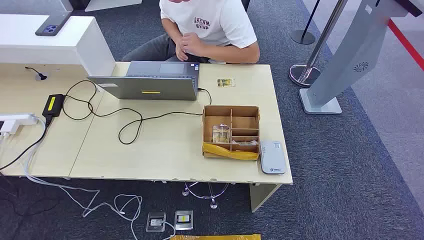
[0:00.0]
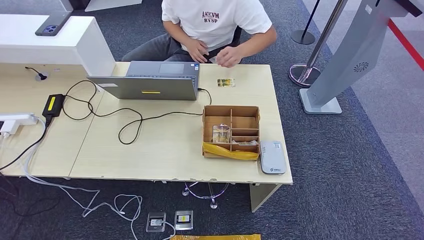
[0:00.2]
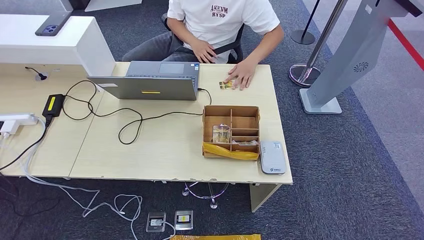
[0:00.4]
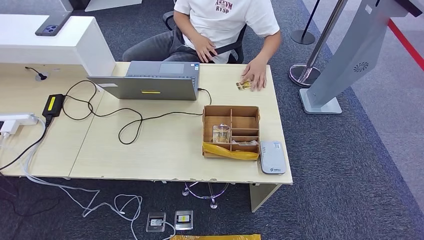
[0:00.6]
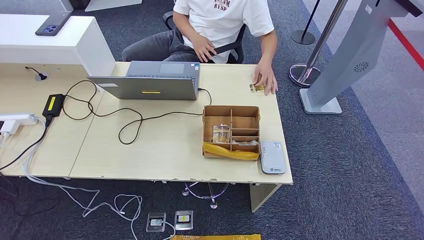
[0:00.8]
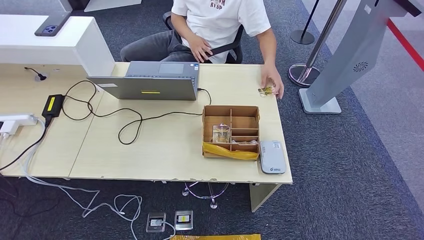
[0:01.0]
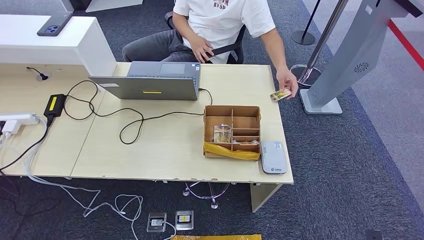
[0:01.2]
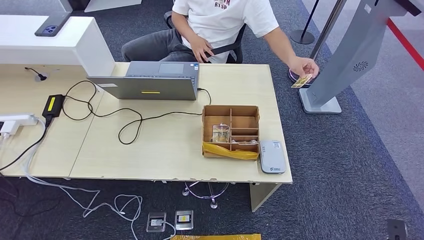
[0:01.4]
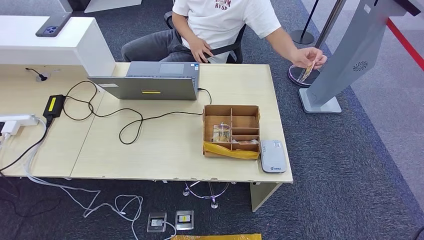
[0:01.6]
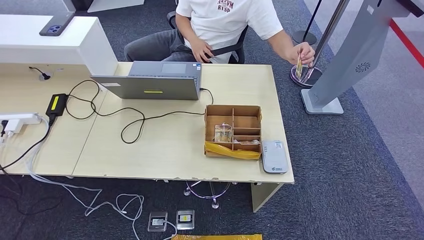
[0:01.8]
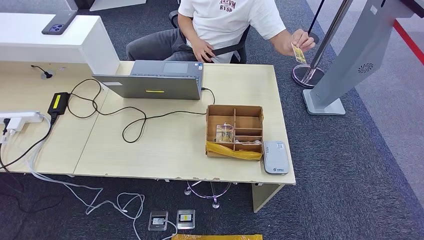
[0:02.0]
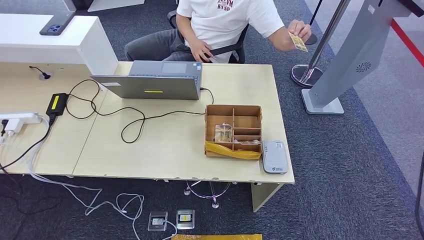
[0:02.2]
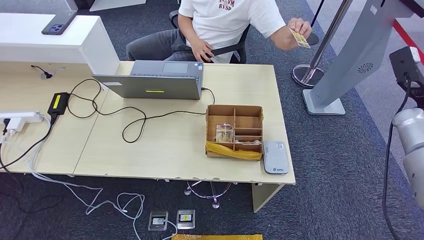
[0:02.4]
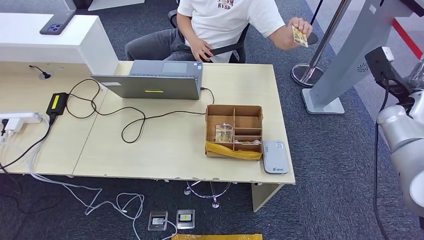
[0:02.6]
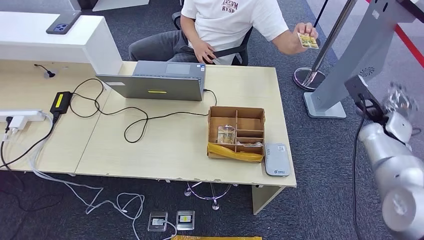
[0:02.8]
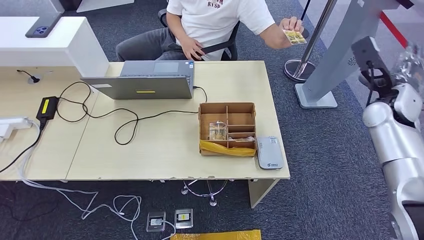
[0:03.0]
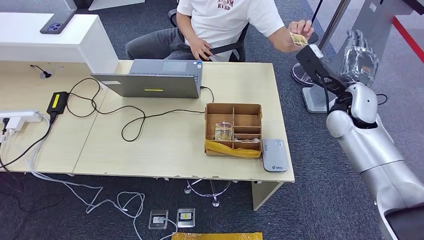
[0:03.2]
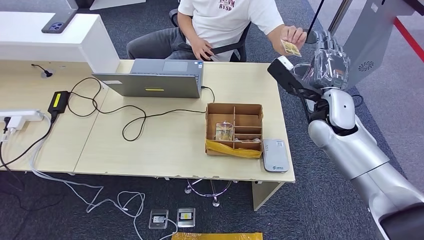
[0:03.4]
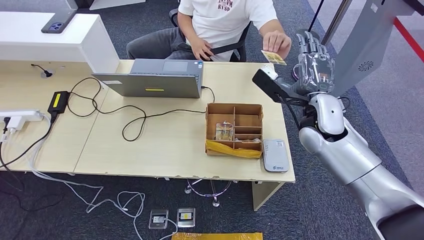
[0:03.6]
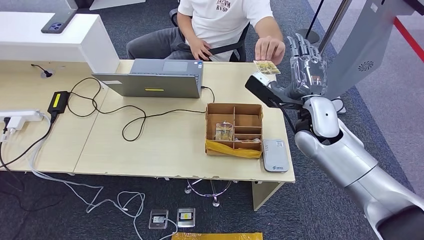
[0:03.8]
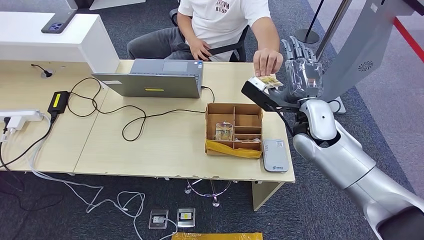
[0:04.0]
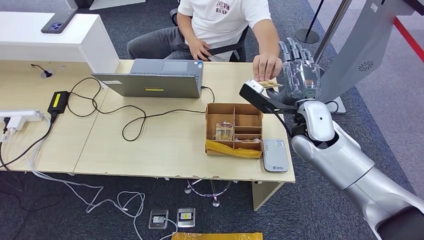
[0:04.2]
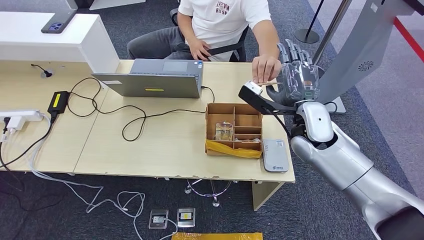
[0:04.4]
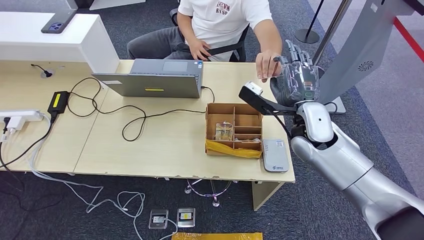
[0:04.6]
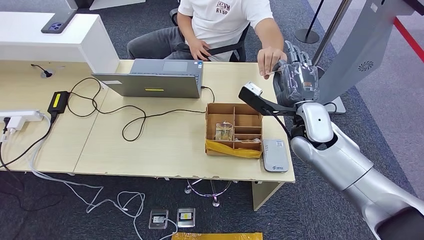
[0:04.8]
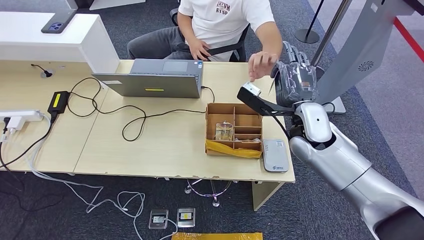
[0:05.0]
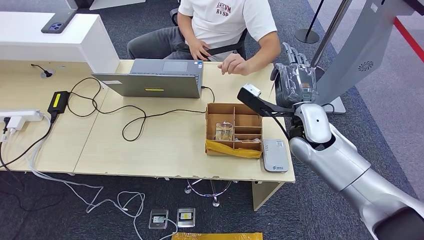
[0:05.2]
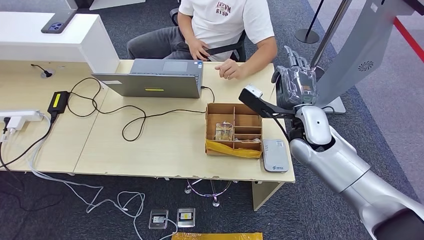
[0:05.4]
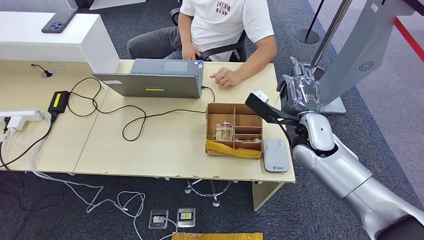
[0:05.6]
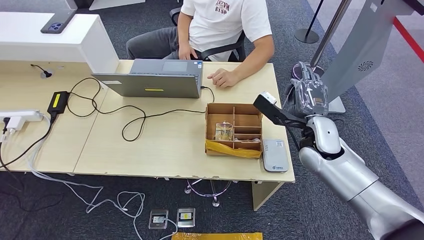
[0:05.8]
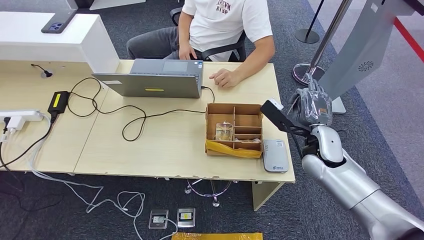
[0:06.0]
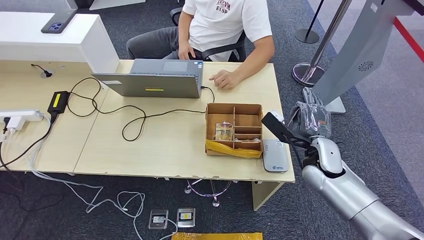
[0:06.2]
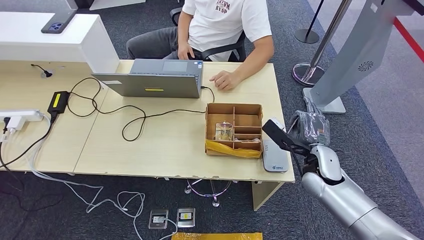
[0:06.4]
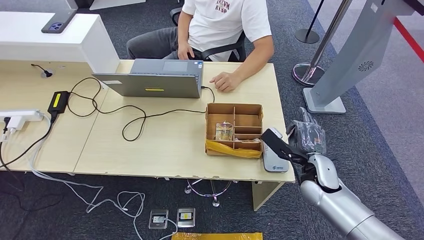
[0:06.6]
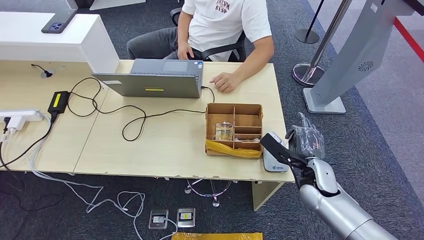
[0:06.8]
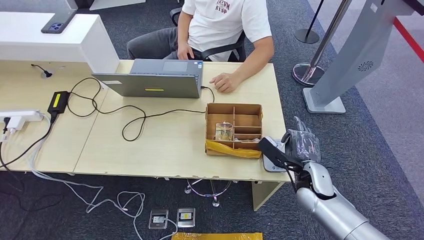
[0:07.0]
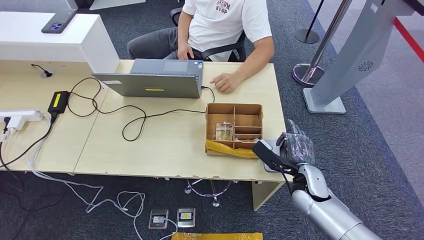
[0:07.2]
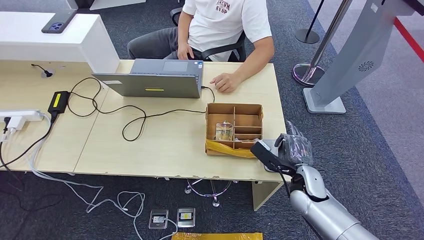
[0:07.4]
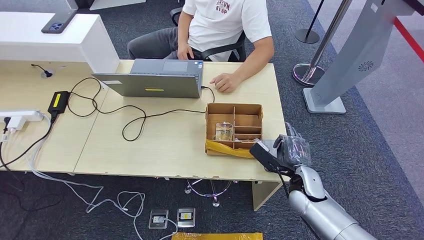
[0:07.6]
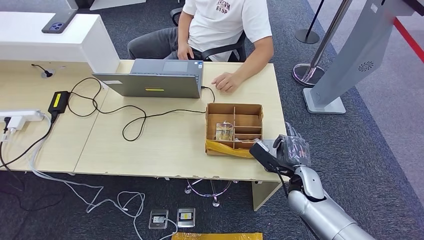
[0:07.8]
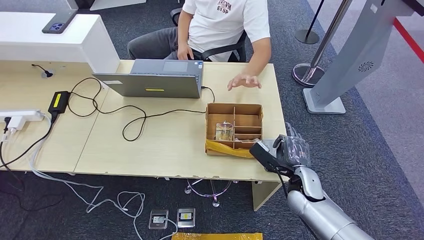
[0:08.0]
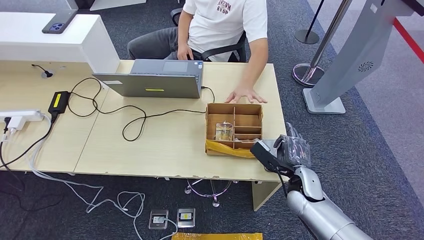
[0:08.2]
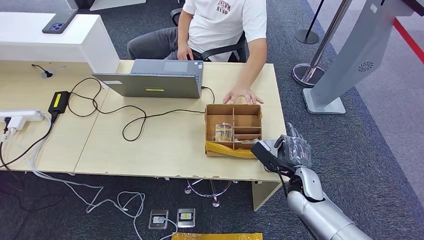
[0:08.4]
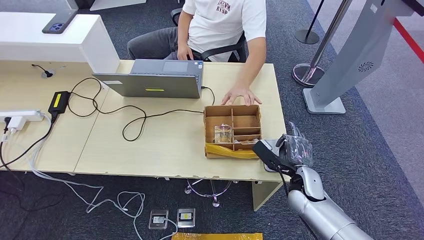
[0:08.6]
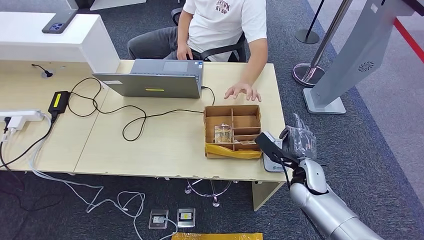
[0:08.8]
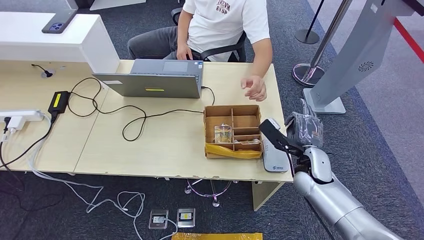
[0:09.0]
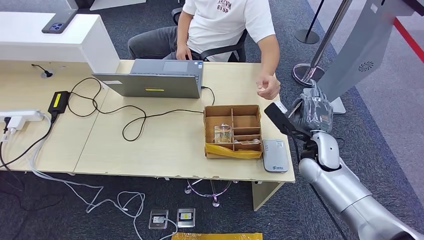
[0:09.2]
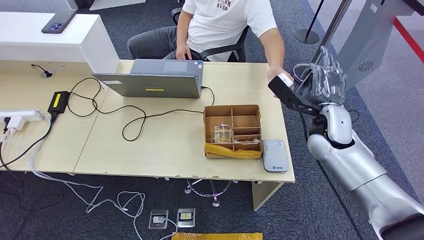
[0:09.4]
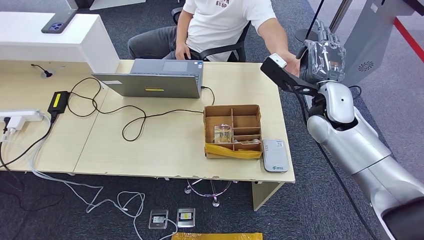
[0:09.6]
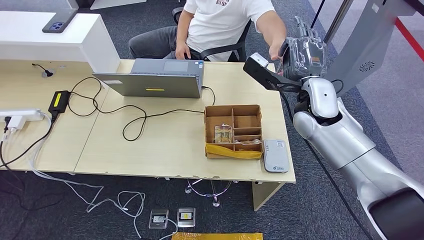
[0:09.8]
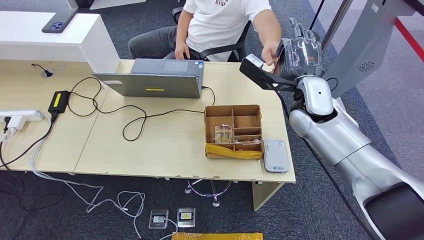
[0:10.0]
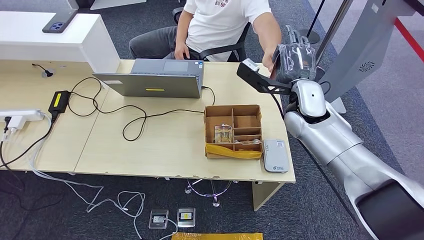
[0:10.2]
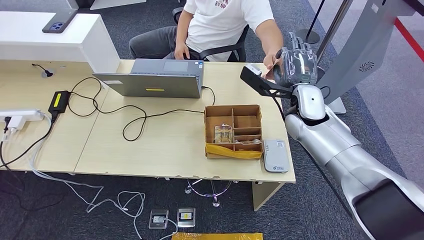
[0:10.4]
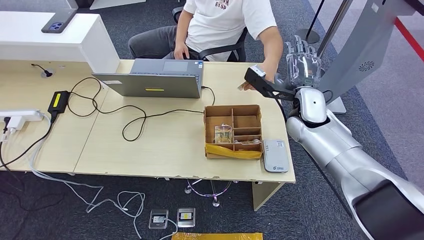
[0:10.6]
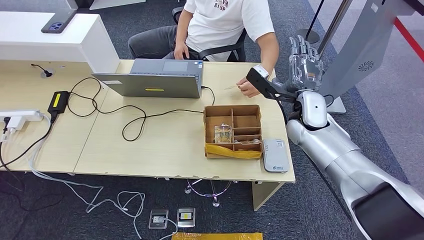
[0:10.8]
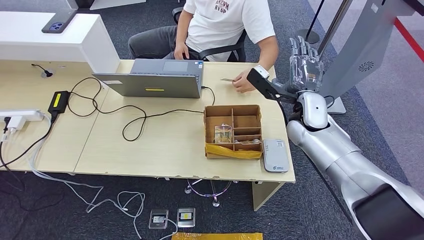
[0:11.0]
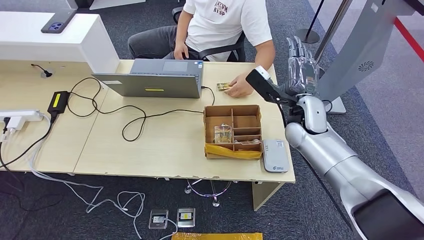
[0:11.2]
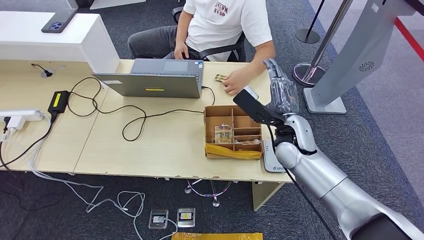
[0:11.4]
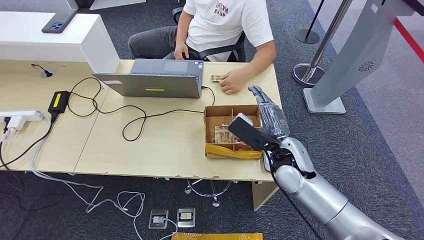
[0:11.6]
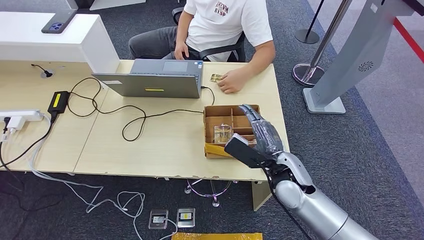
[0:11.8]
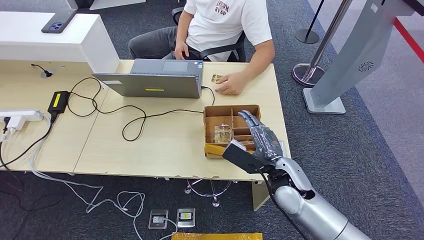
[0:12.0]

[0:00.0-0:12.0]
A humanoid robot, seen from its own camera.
Step, 0:00.0 to 0:06.0: Take the ID card from the person's hand.
Step, 0:06.2 to 0:08.0: Place the ID card on the card reader.
Step, 0:08.4 to 0:11.6: Hand the ID card to the person.
0:04.4 to 0:06.0: The right hand shifts roughly 10 cm downward and to the right.
0:06.0 to 0:07.6: The right hand moves downward and backward, some 15 cm.
0:07.6 to 0:09.0: The right hand changes place by roughly 5 cm.
0:09.0 to 0:10.4: The right hand goes about 20 cm upward, forward and to the left.
0:10.4 to 0:12.0: The right hand moves backward and downward, some 20 cm.

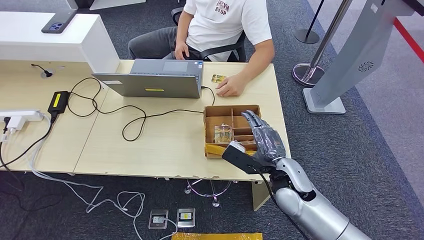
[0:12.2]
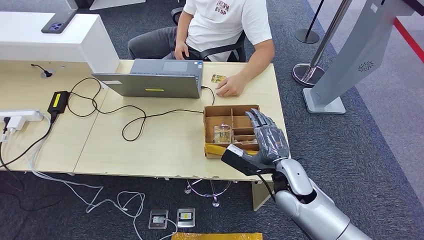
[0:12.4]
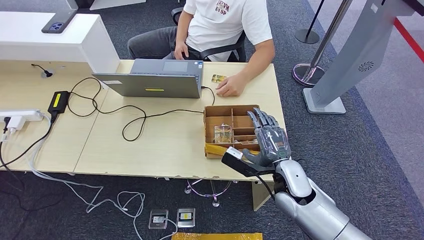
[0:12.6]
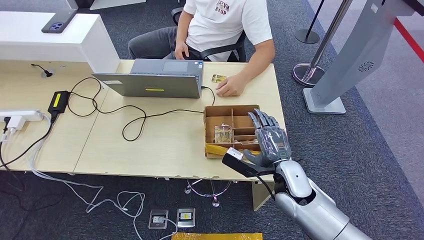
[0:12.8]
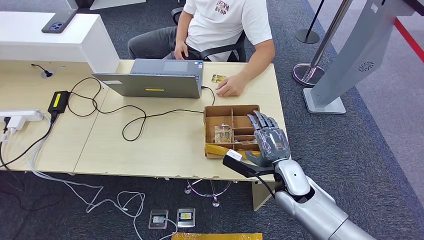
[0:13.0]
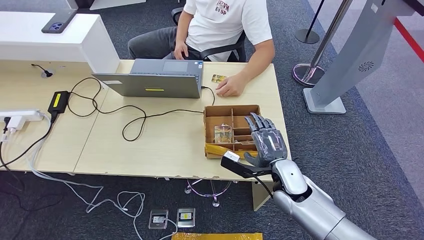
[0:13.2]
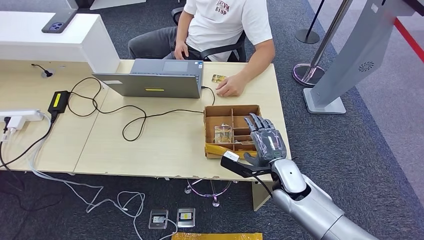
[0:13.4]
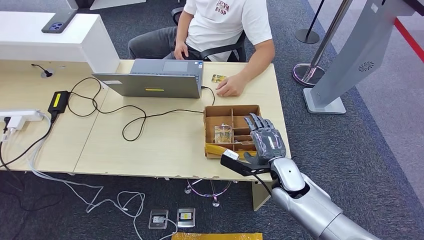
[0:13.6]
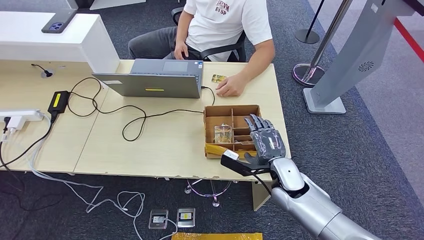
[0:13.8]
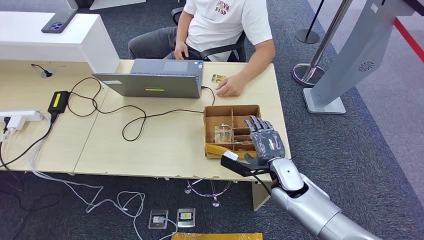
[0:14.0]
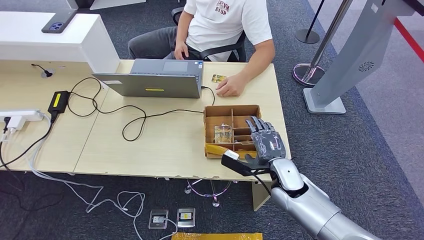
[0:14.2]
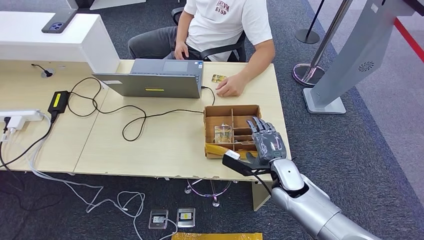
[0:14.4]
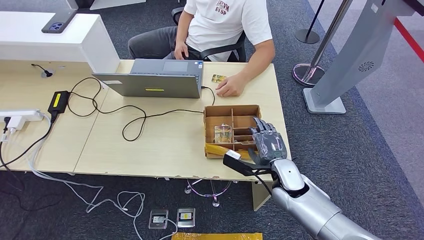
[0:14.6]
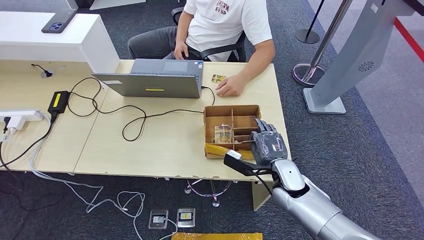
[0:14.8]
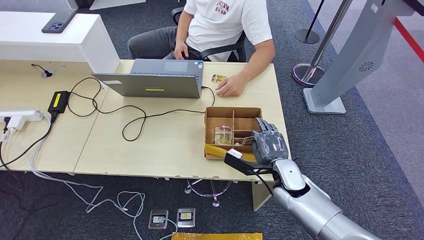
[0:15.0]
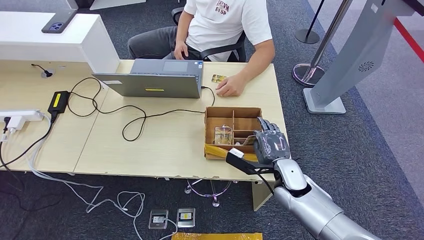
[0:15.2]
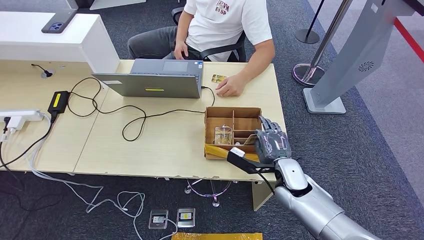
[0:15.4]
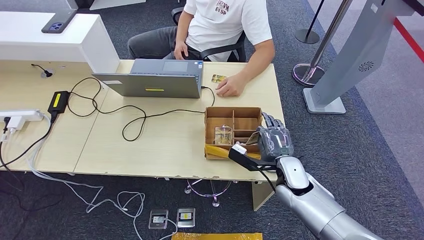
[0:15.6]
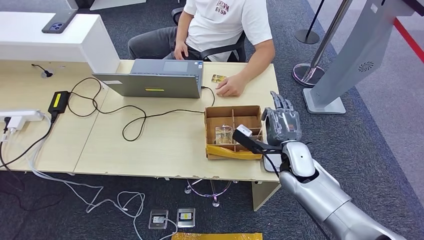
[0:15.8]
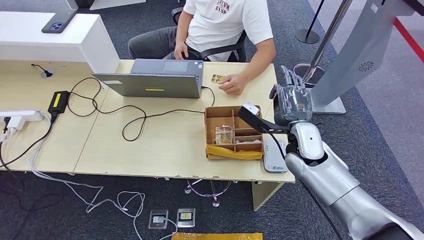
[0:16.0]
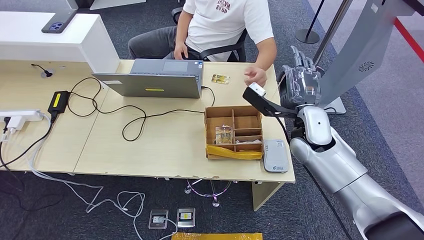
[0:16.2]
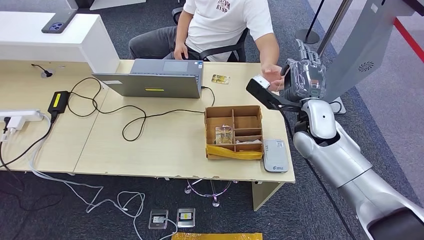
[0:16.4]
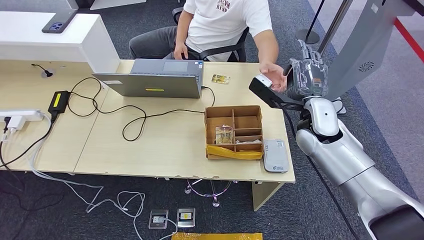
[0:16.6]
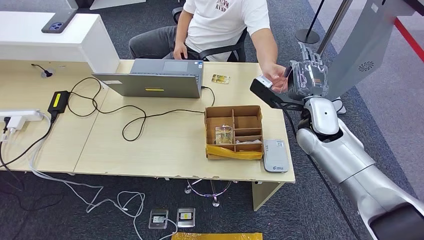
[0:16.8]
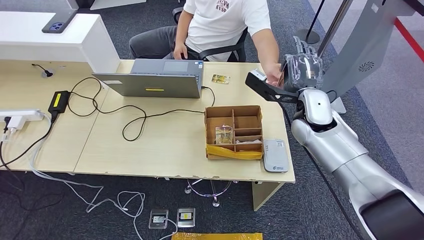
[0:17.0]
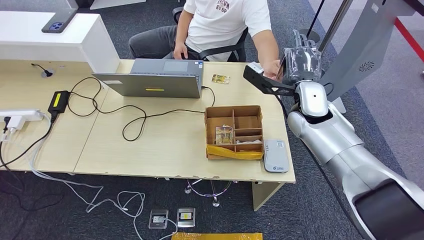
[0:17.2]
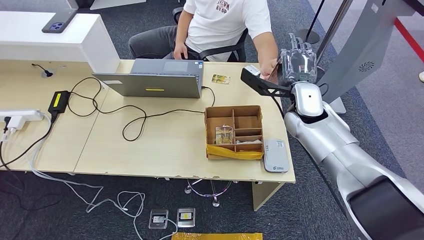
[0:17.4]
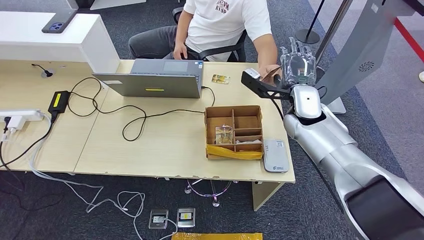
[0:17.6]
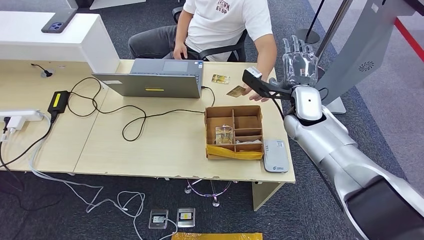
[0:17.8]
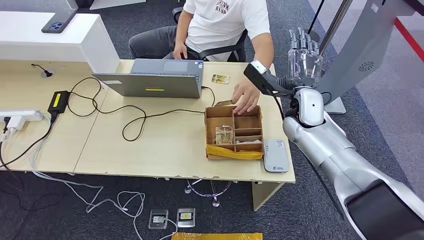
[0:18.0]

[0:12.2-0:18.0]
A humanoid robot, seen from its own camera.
Step, 0:12.2 to 0:16.0: Pick up the room key from the key card box.
Step, 0:16.2 to 0:17.8: Hand the room key to the person.
0:13.6 to 0:15.0: The hands move only a little.
0:15.0 to 0:16.6: The right hand goes roughly 20 cm upward and forward.
0:16.6 to 0:18.0: The hands move only a little.
